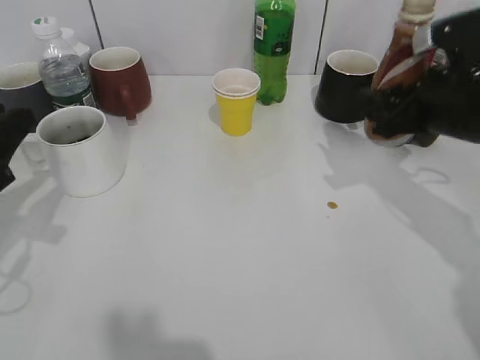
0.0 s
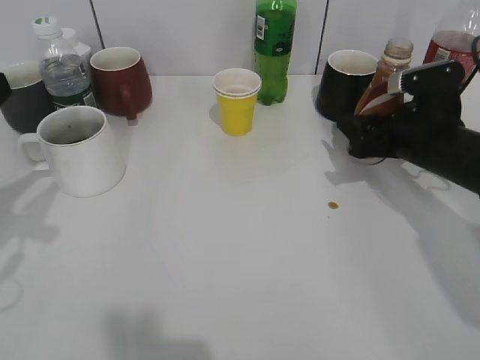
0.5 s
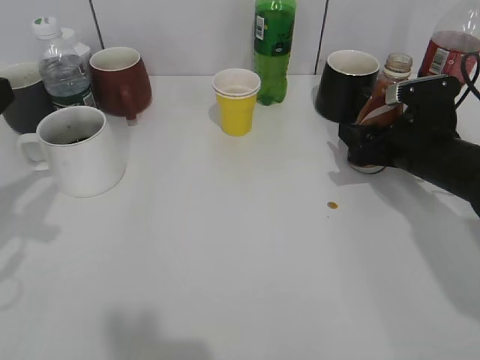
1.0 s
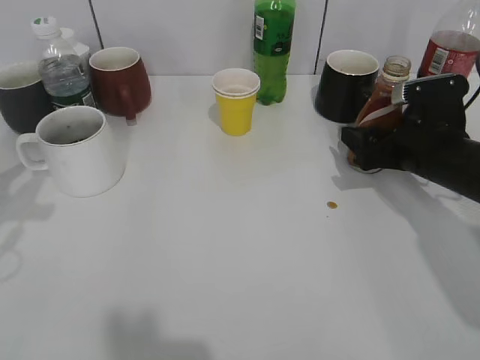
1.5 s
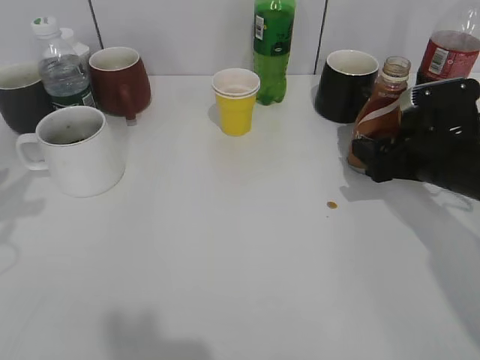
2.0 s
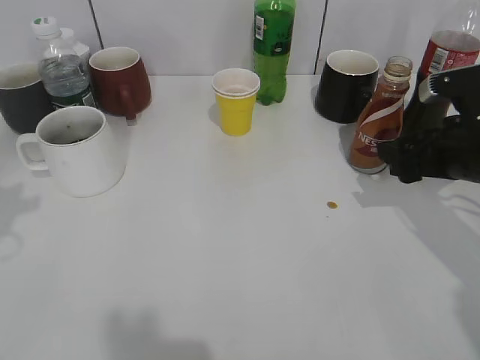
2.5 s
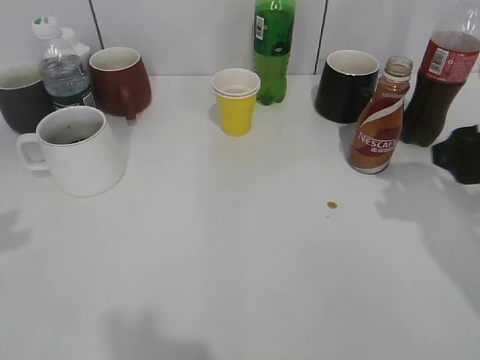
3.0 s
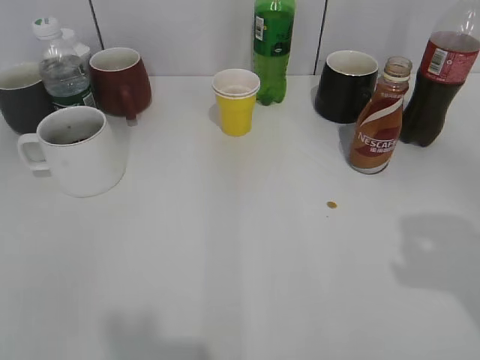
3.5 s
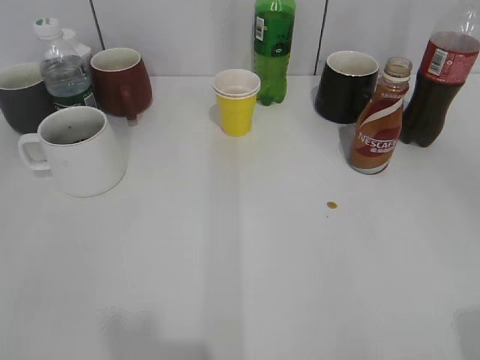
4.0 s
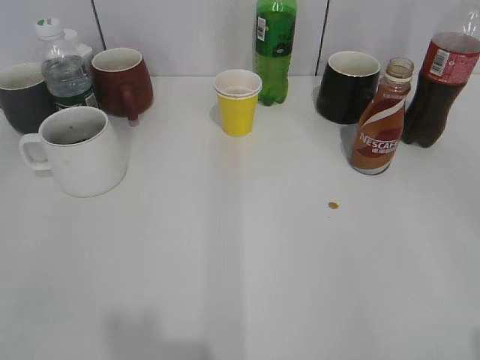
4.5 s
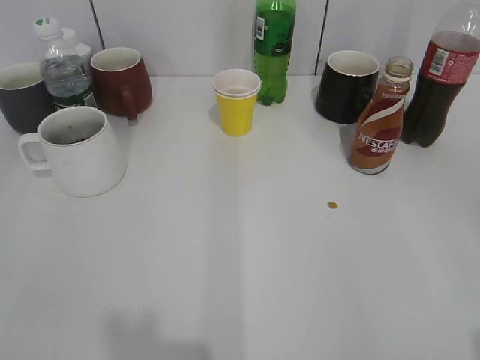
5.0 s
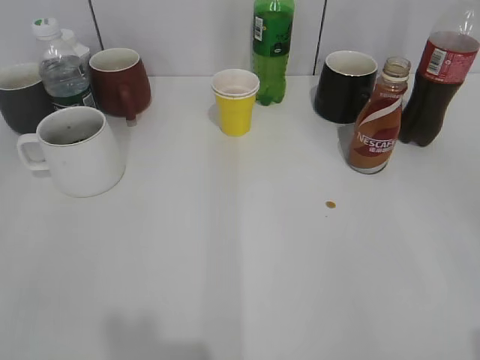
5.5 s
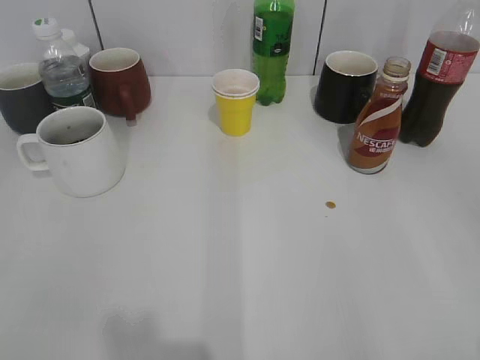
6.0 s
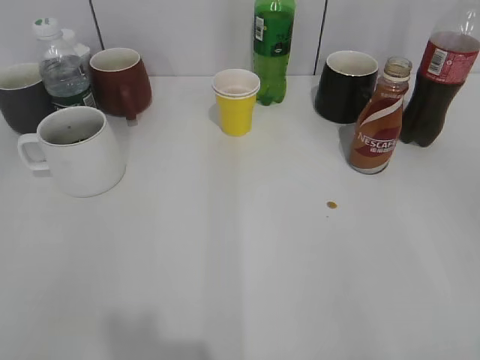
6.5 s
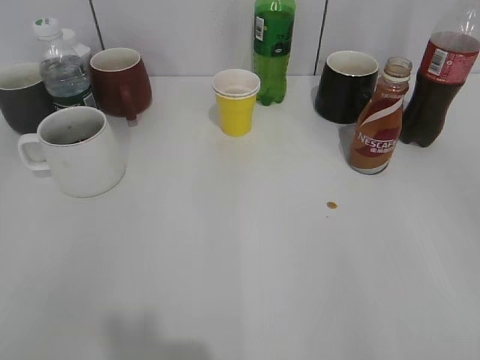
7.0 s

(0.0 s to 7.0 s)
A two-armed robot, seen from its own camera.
Step, 0.0 s - 2.5 s: Place the coffee bottle on the table with right gripper.
0.0 s - 2.0 s: The right gripper moves downward, roughly 5 cm, and opens, while the left gripper moves upward, approximately 5 cm.
2.0 s - 3.5 s: The right gripper goes some 25 cm upward and backward.
3.5 s - 5.0 s: The right gripper is displaced backward by some 10 cm.

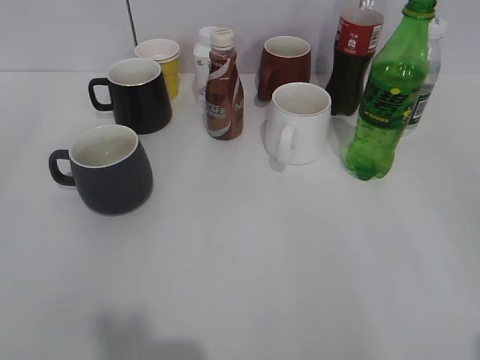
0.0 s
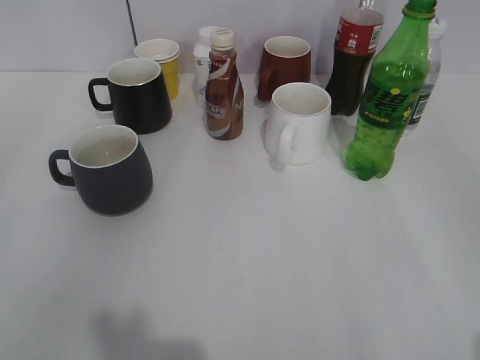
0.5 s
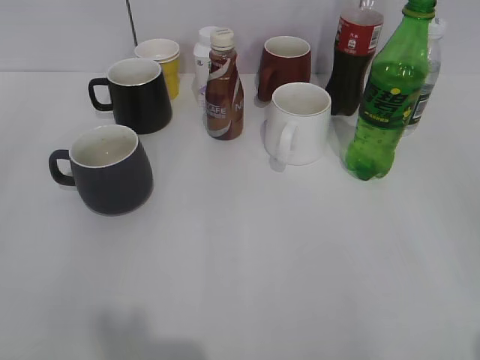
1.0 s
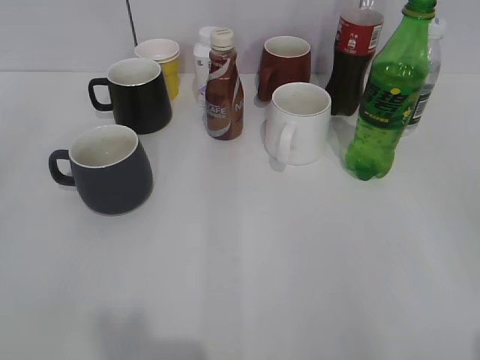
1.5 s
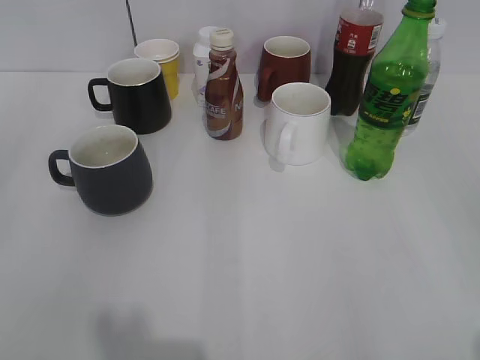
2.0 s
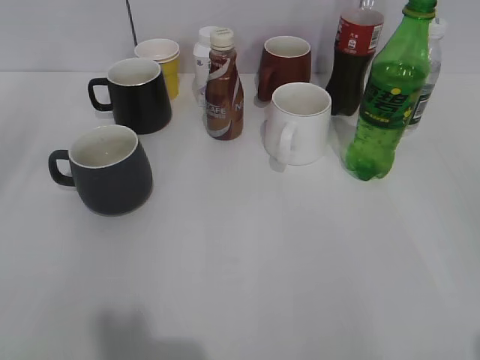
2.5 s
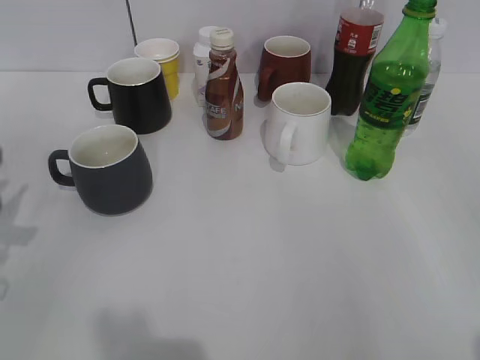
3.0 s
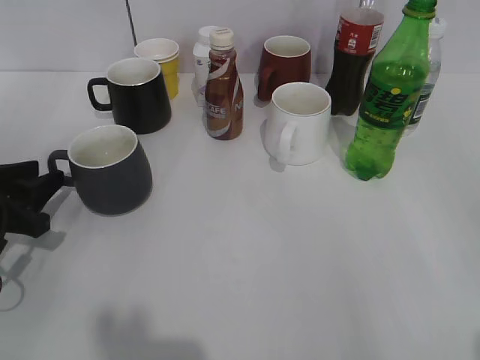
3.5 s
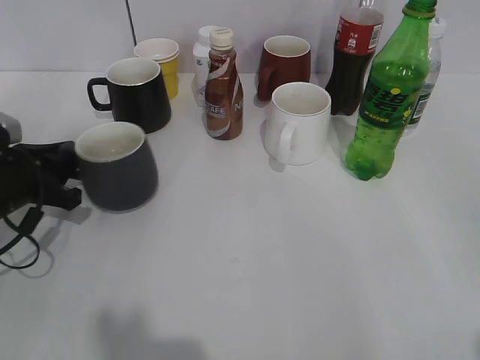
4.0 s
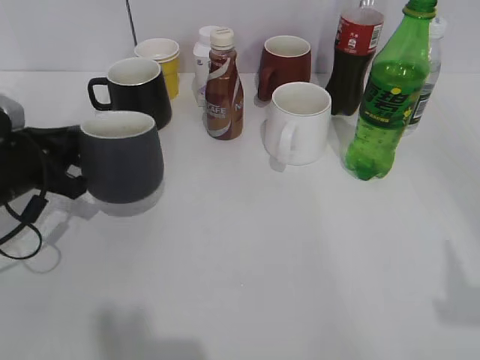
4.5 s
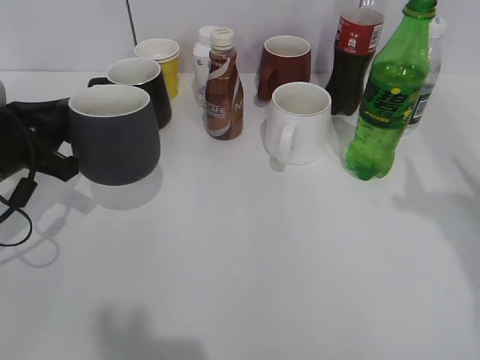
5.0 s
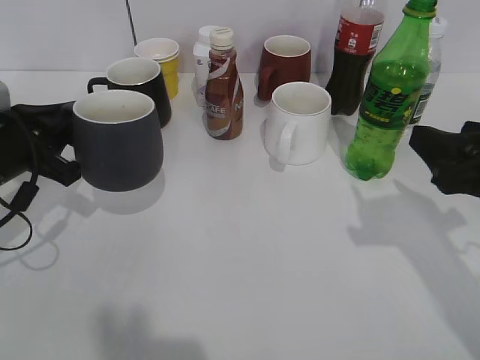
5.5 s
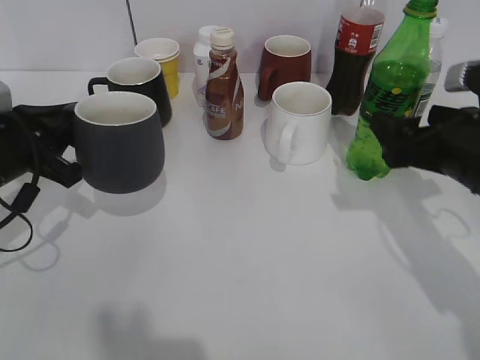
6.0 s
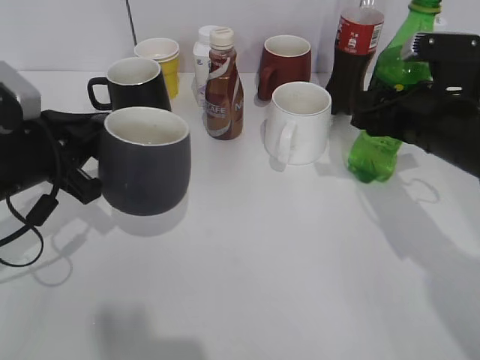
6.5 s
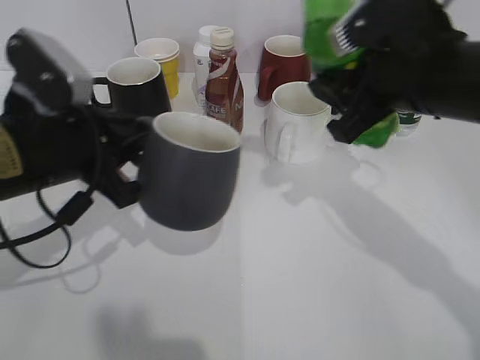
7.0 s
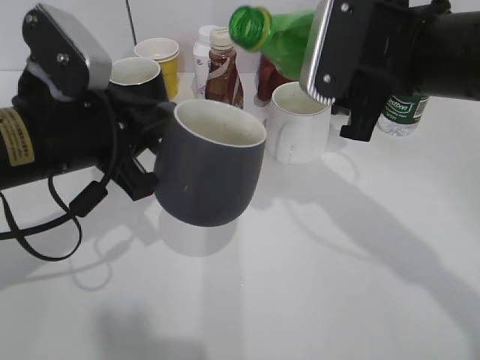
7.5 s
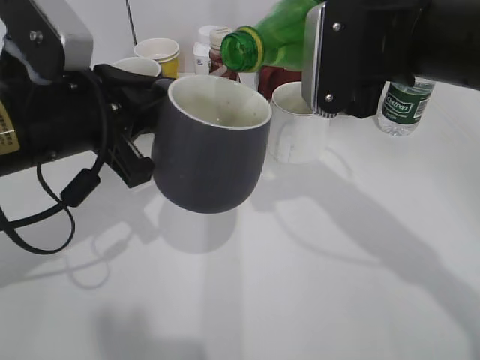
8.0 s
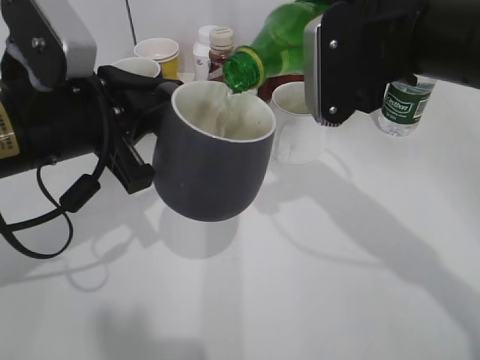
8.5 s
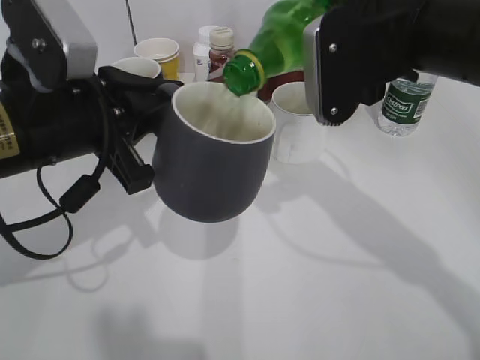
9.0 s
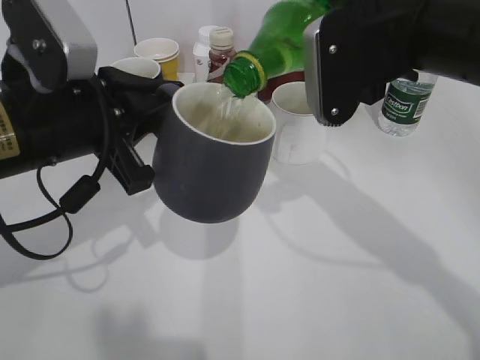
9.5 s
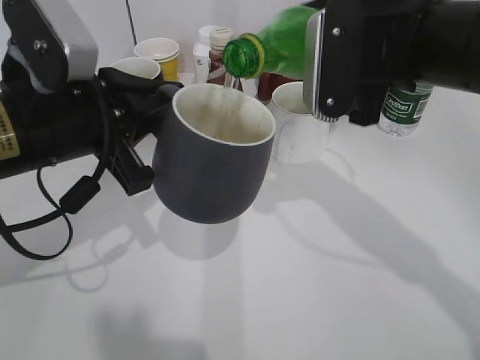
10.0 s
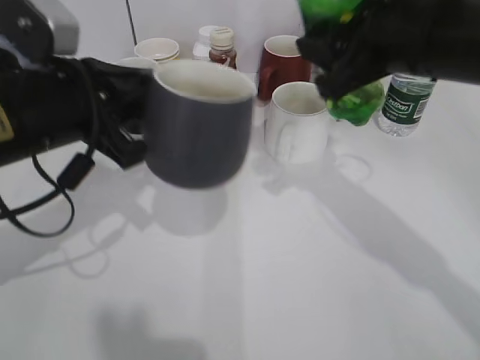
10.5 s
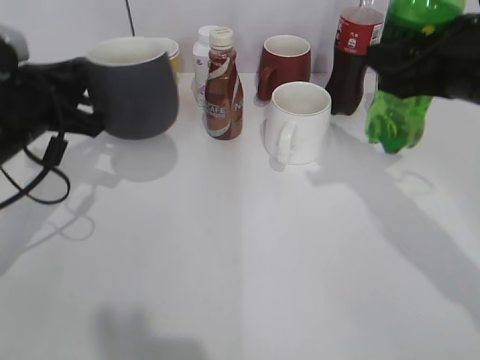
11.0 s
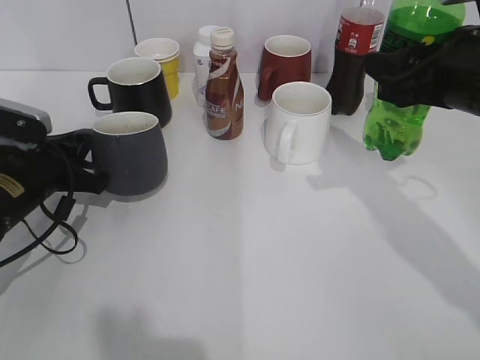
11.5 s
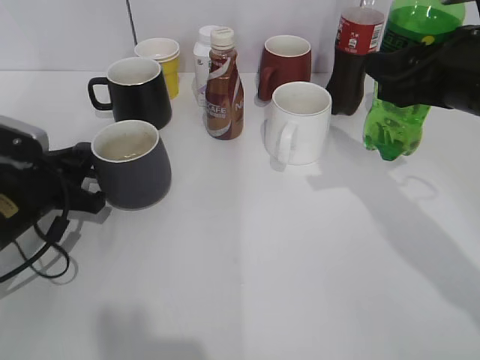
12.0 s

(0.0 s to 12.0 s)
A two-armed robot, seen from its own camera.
Step, 2.0 s - 4.0 s: Grasp the grey cup with left gripper.
Step, 5.5 s - 6.0 s: Grasp the bottle with sprite with right gripper.
Step, 6.5 s - 10.0 s: Pour the sprite from bottle to cup with right gripper.
2.0 s - 4.0 s: The left gripper is displaced forward and downward by roughly 30 cm.
4.0 s - 6.0 s: The left gripper shifts some 5 cm upward, and closes. Meanwhile the right gripper shifts some 25 cm forward.
6.0 s - 8.0 s: The right gripper heads upward and to the left, covering some 15 cm, and closes. The left gripper is displaced to the right and upward by approximately 10 cm.
8.0 s - 10.0 s: There are only small adjustments of the grippers.
10.0 s - 12.0 s: The left gripper goes some 15 cm downward and to the left; the right gripper moves to the right, about 5 cm.

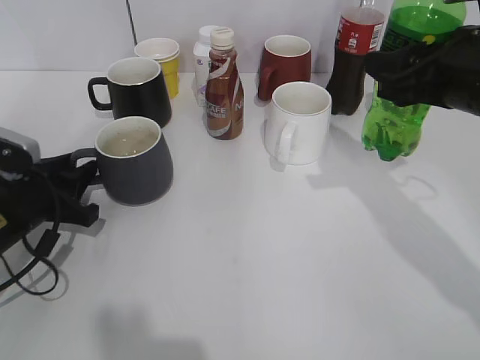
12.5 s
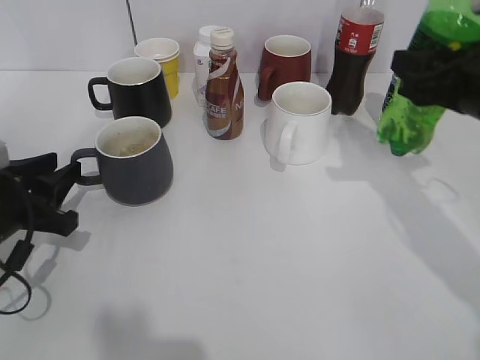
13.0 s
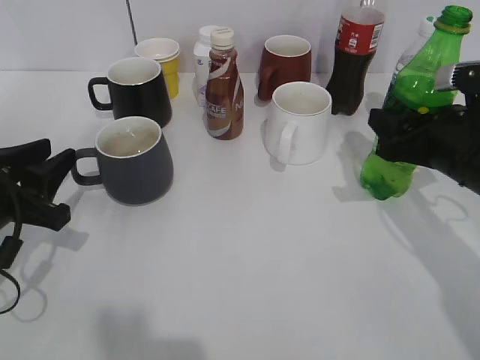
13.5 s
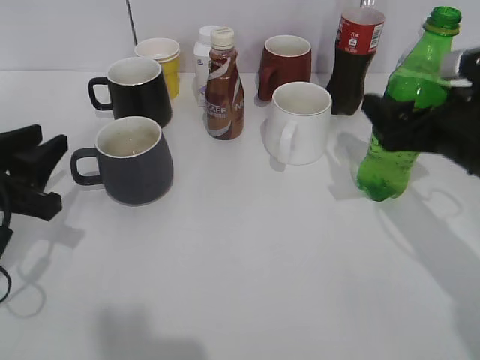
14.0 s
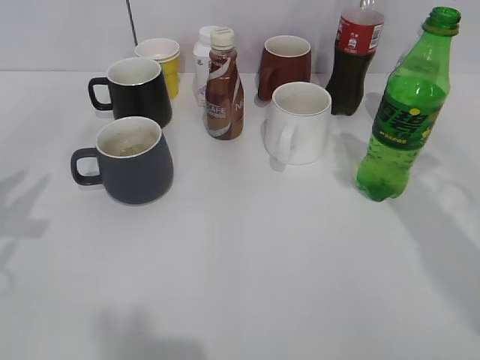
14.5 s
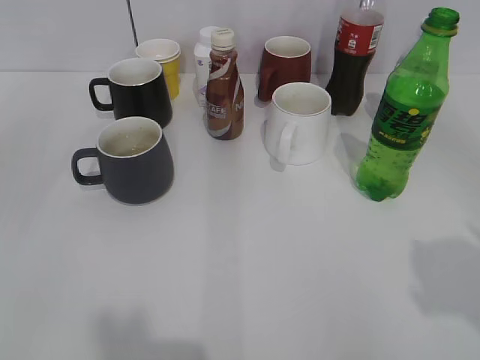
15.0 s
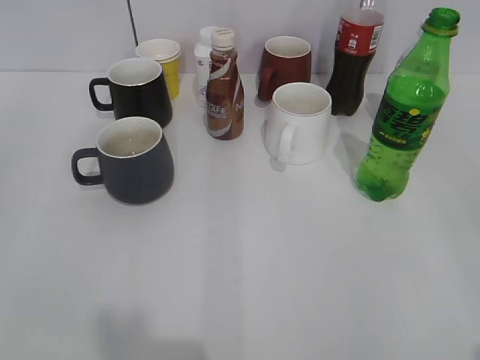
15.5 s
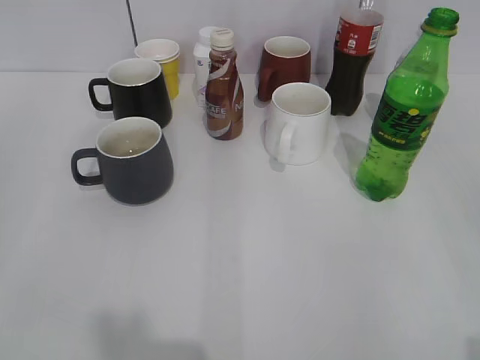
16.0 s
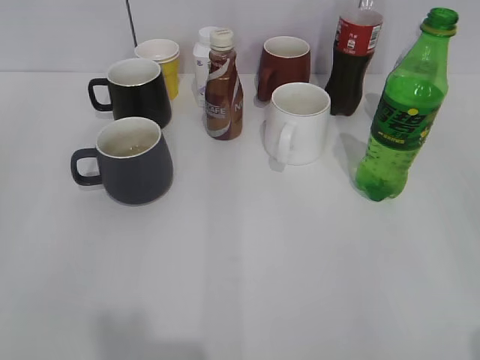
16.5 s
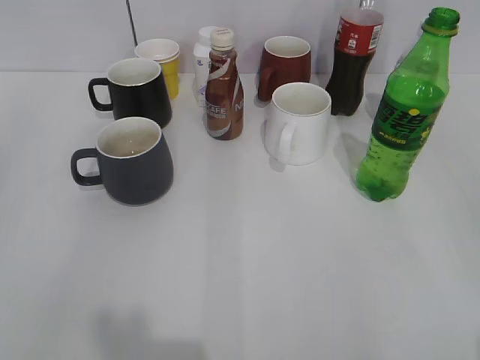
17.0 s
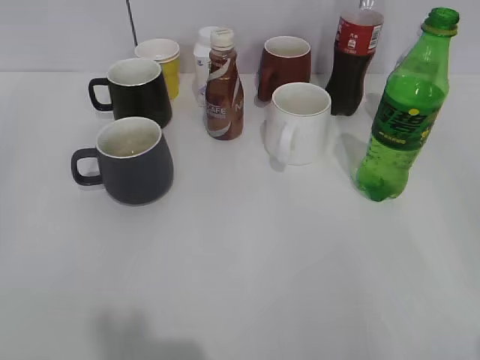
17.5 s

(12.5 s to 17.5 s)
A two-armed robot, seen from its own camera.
Step, 13.0 s - 14.0 s: Place the sprite bottle on the table with right gripper.
12.5 s - 15.0 s: The left gripper goes some 30 cm upward and backward. Meanwhile the right gripper shifts about 25 cm backward, upward and to the right, and opens up.
